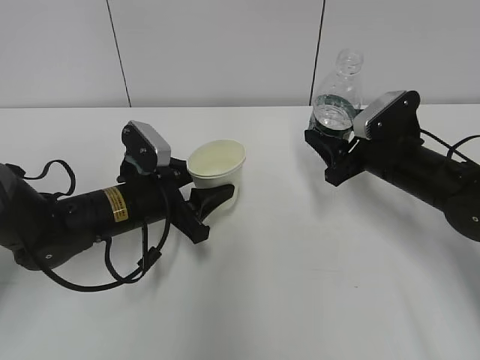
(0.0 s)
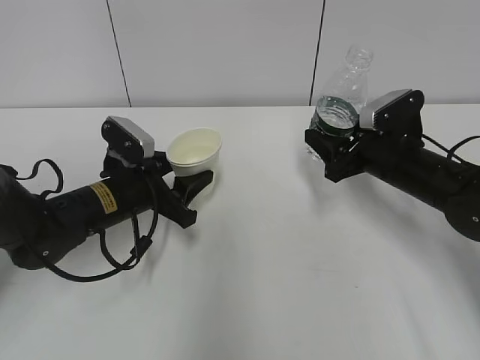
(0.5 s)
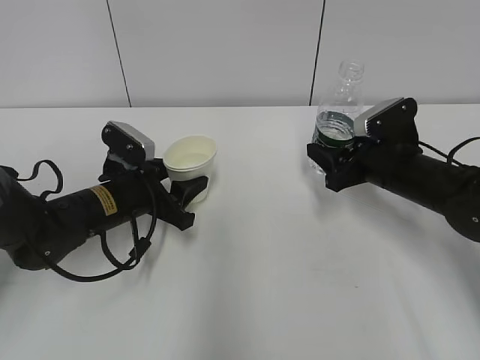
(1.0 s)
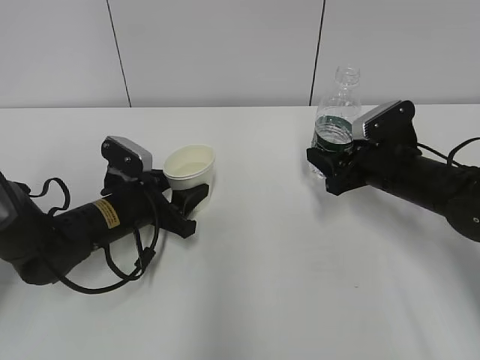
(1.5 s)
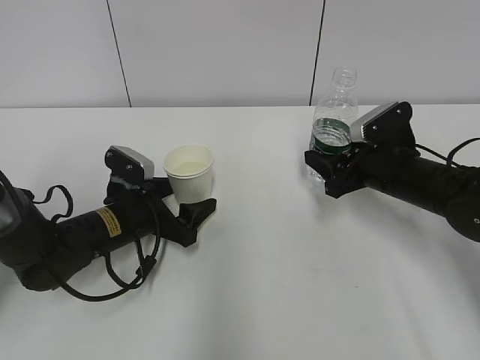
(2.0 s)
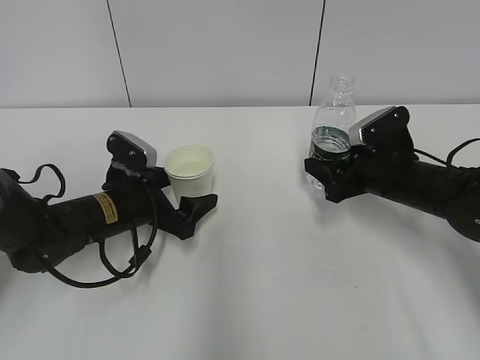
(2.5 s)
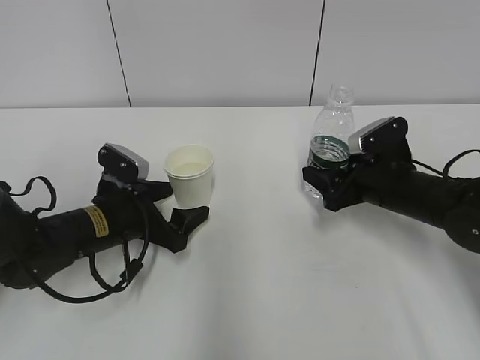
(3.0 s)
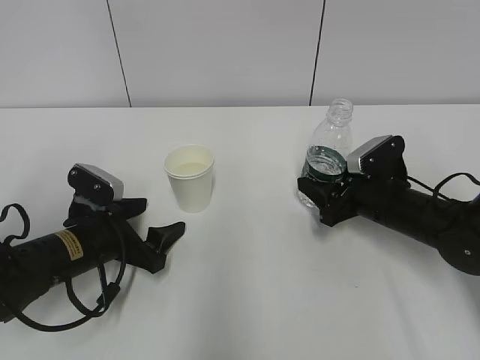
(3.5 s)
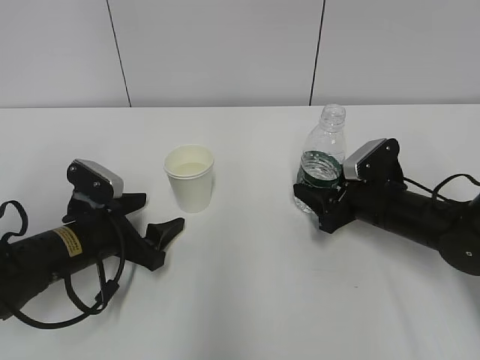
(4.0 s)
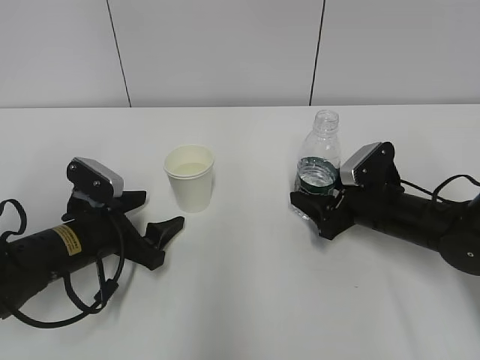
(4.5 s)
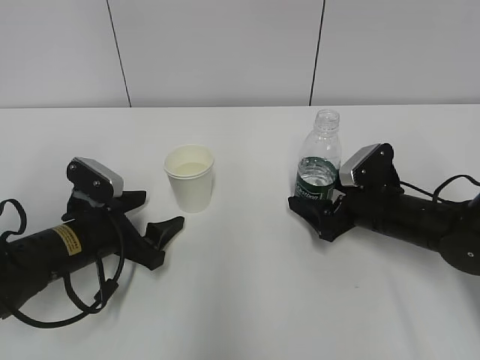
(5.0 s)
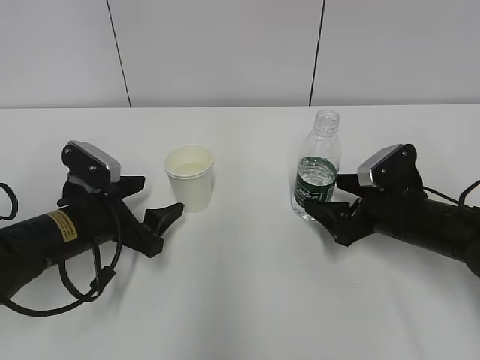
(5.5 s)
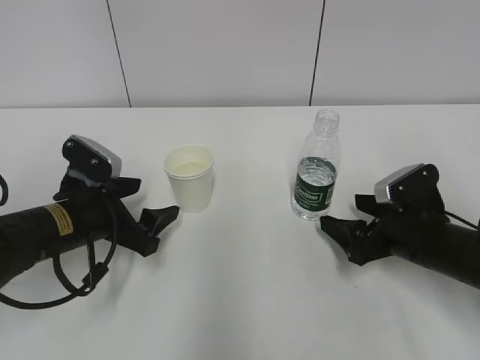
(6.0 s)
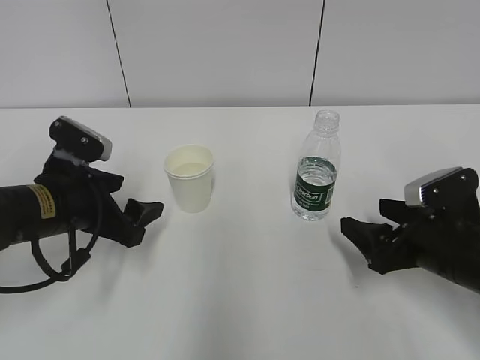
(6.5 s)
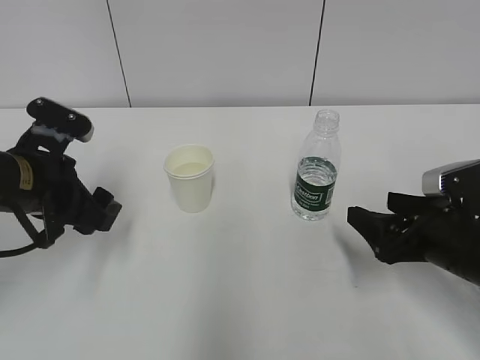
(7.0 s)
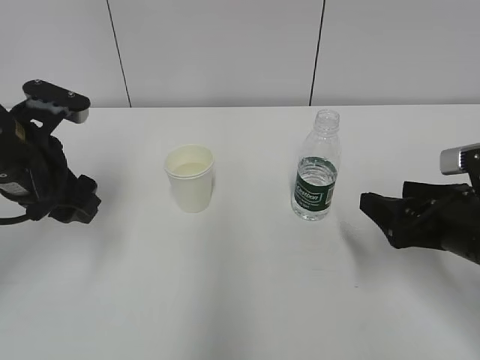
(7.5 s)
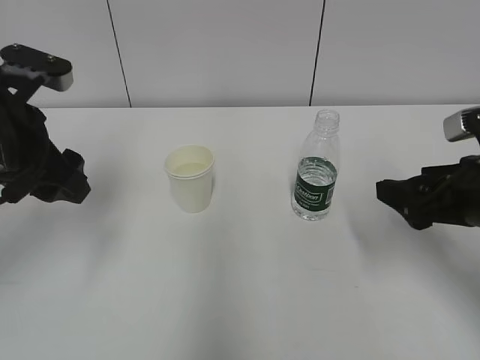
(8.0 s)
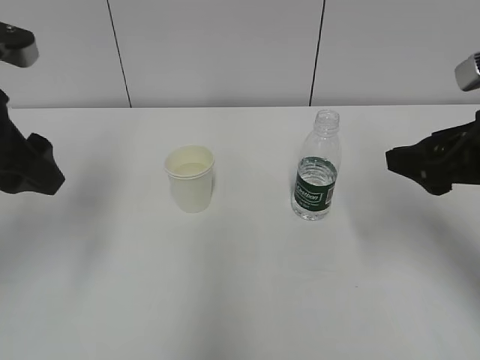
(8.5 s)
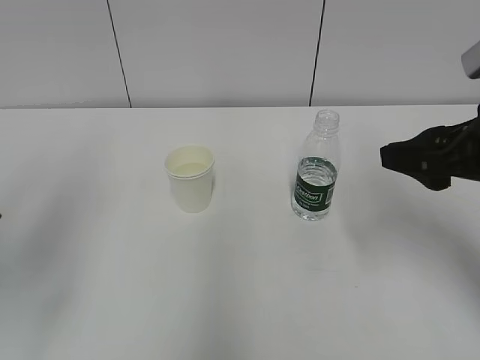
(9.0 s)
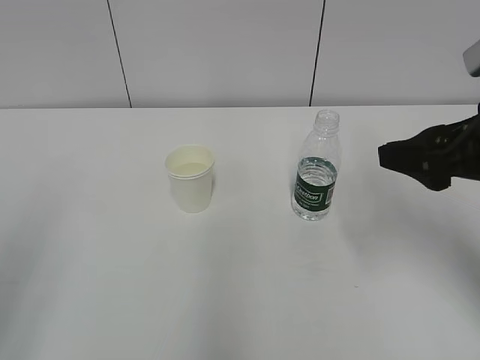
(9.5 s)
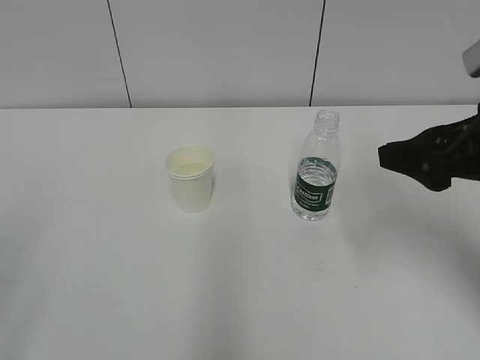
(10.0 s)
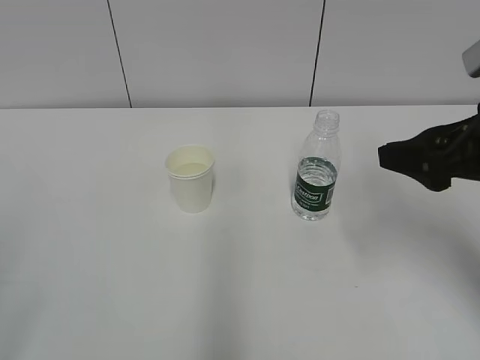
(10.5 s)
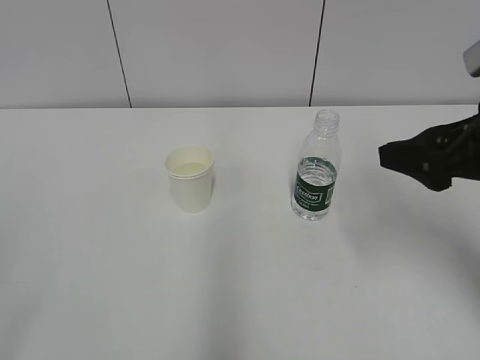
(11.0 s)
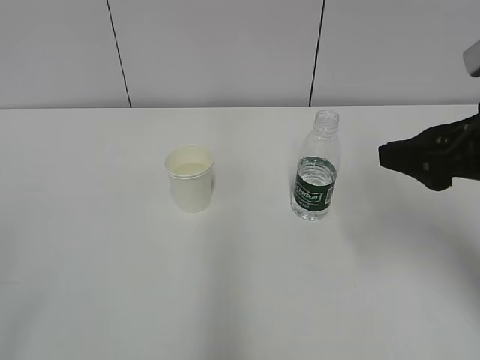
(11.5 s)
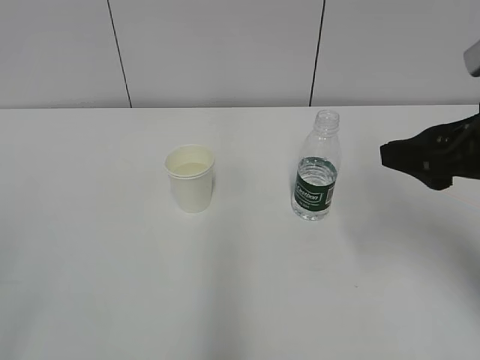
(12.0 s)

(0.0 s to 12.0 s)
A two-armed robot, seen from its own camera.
0.0 s - 2.0 s: The left gripper moves about 5 cm, and opens up.
2.0 s - 4.0 s: The left gripper ends up approximately 5 cm from where it was.
4.0 s - 6.0 s: The right gripper travels backward by some 5 cm, and opens.
6.0 s - 8.0 s: The right gripper shifts some 15 cm upward and backward. Meanwhile the left gripper heads upward, covering approximately 15 cm.
8.0 s - 10.0 s: The right gripper goes about 10 cm upward. Meanwhile the left gripper shifts roughly 25 cm backward.

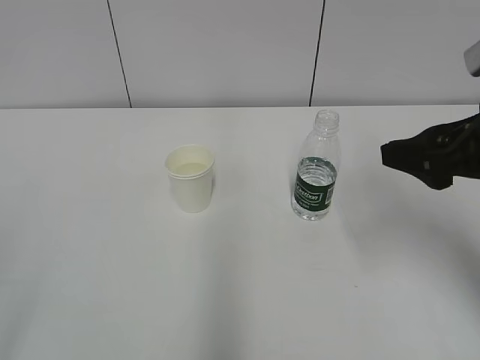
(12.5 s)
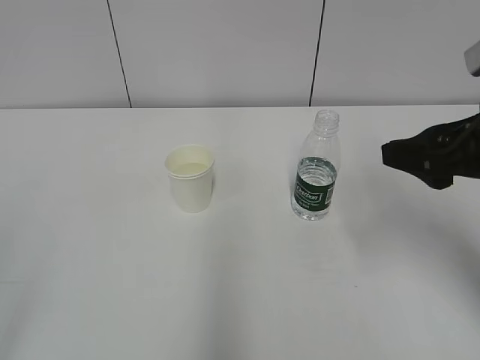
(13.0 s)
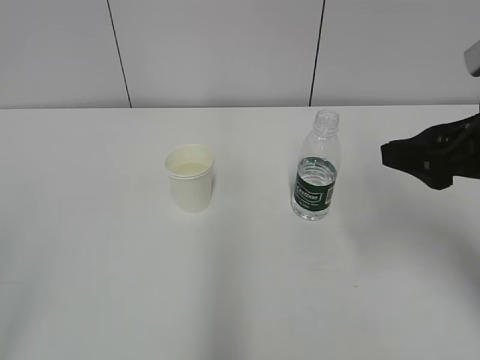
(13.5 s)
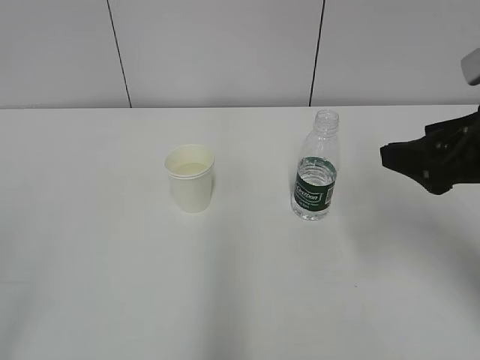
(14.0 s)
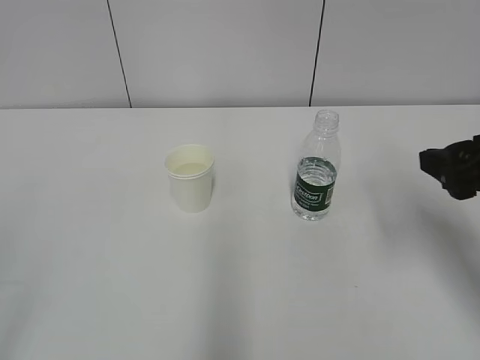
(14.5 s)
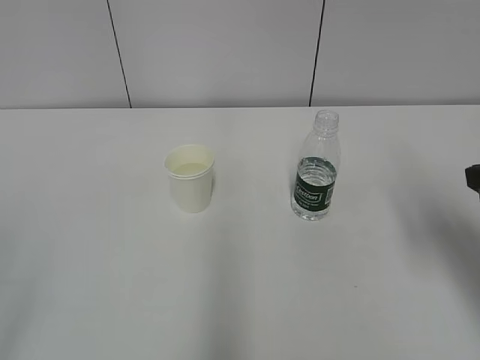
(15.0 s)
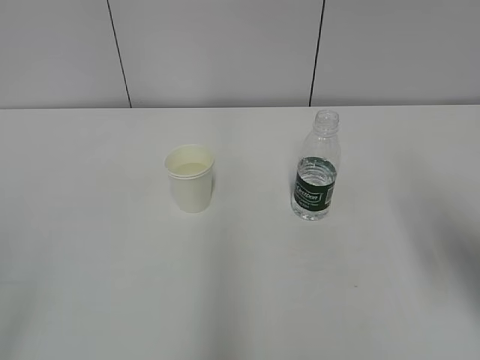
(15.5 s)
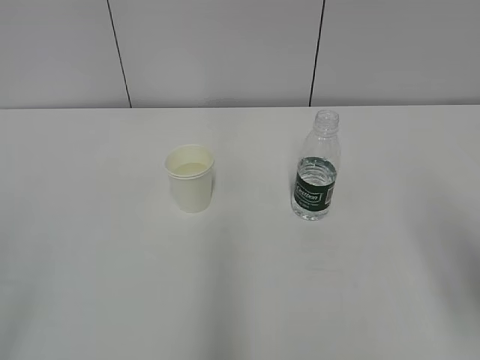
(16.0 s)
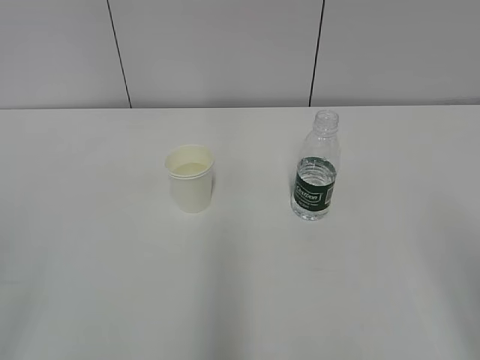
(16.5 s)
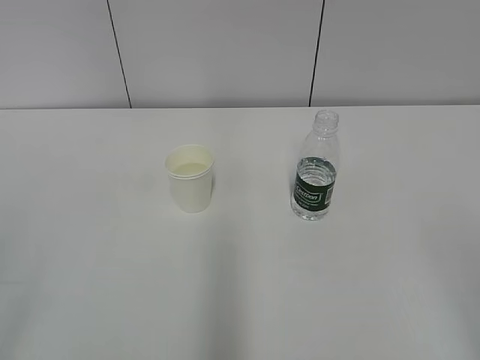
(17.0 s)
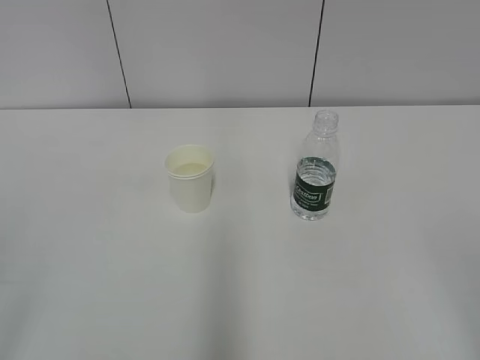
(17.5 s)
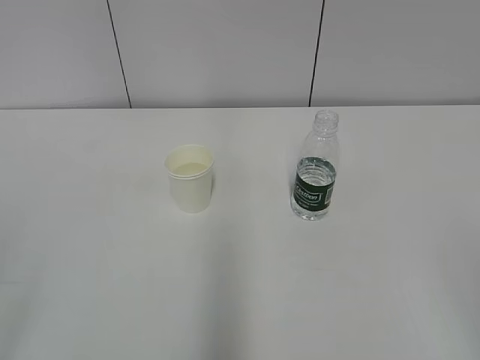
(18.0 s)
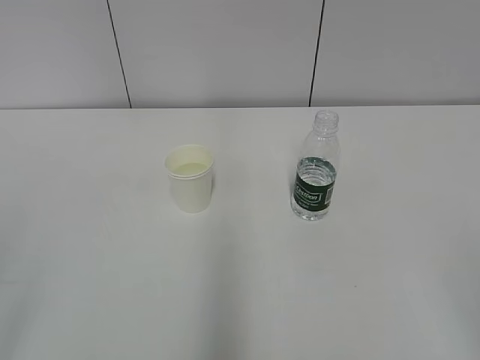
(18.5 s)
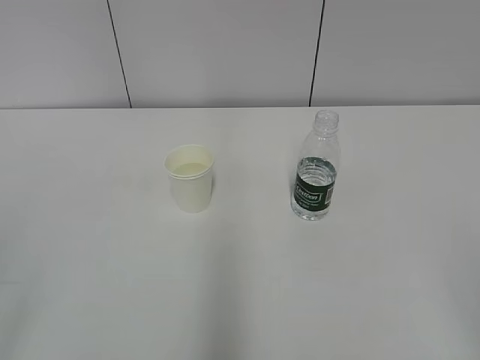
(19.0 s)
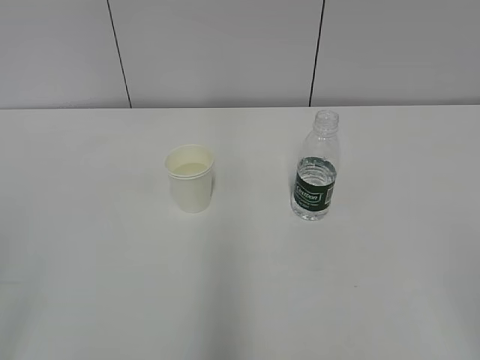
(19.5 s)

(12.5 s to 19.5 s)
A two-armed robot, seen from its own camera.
12.5 s - 14.5 s: The grippers stay close to where they were, moving slightly.
14.5 s - 16.0 s: The right gripper moves backward, some 10 cm.

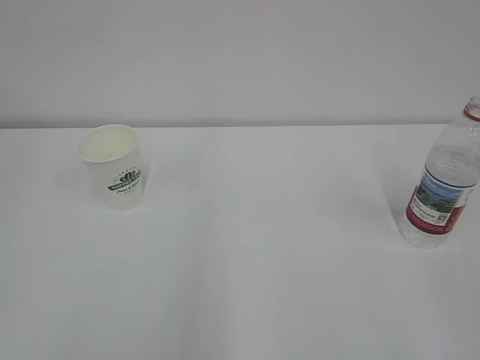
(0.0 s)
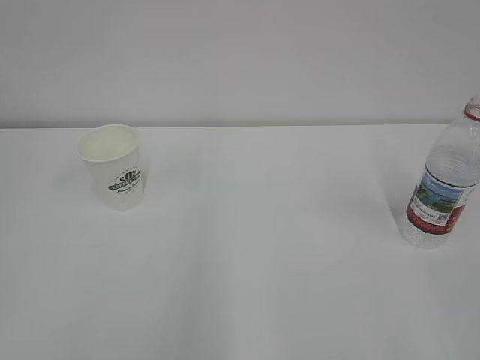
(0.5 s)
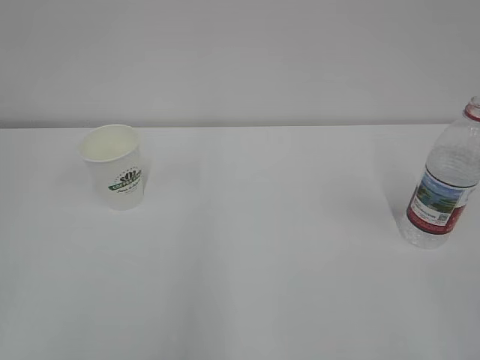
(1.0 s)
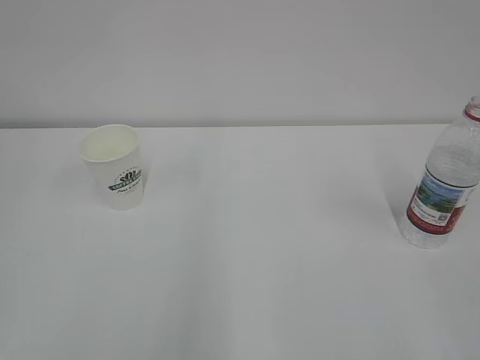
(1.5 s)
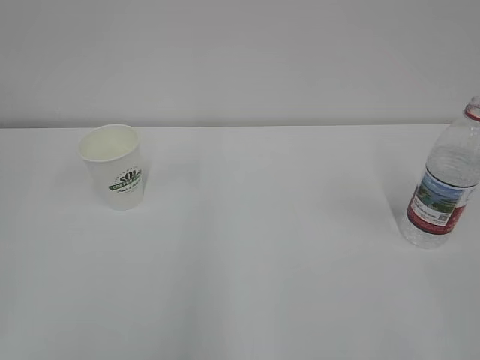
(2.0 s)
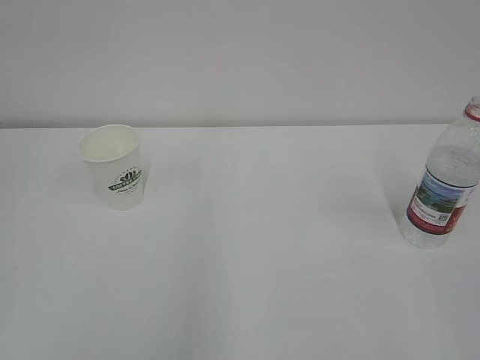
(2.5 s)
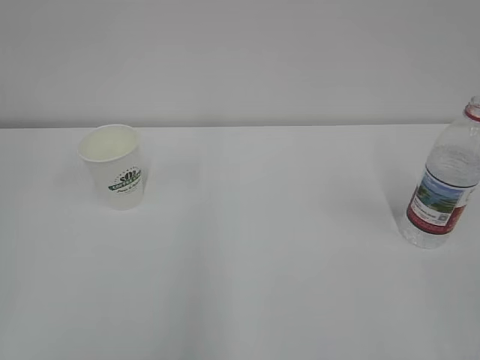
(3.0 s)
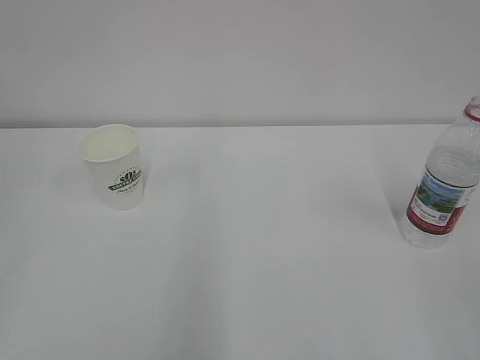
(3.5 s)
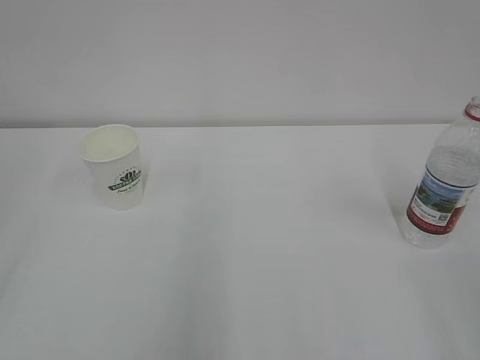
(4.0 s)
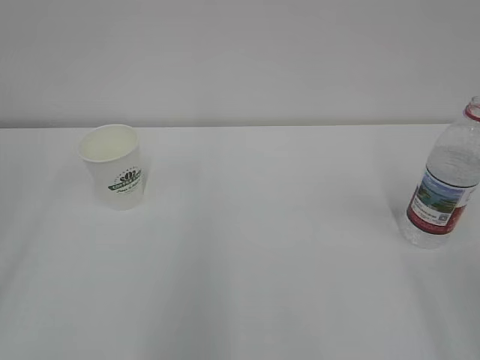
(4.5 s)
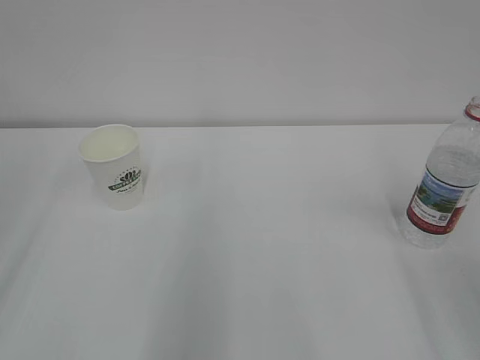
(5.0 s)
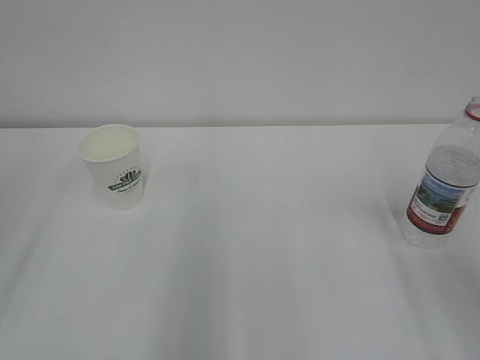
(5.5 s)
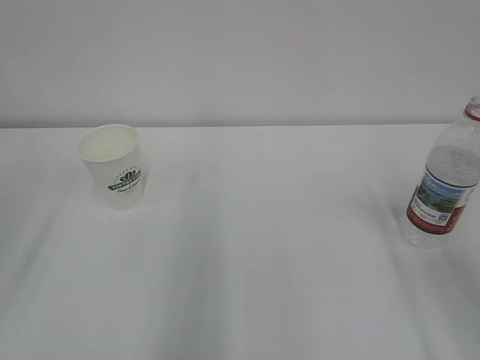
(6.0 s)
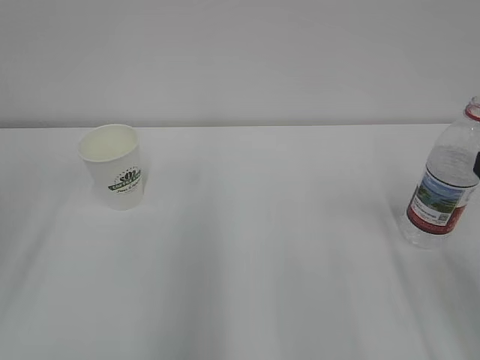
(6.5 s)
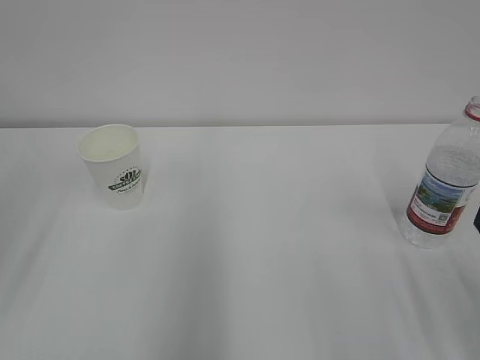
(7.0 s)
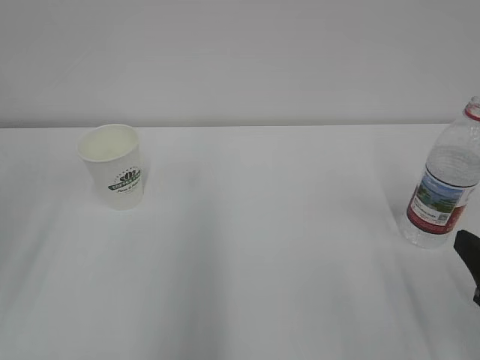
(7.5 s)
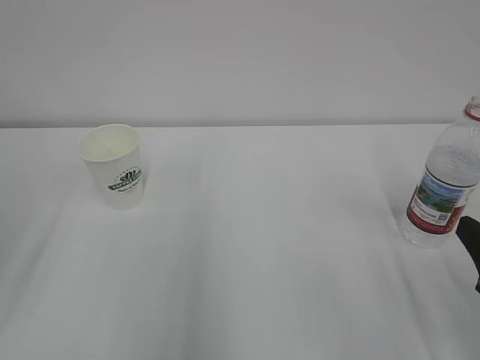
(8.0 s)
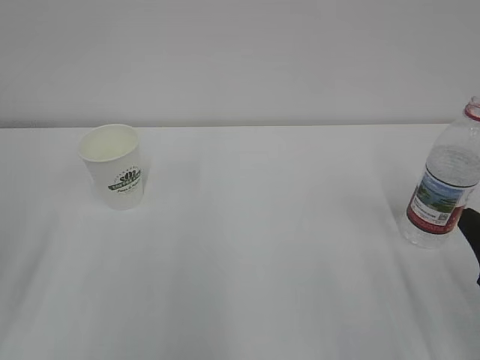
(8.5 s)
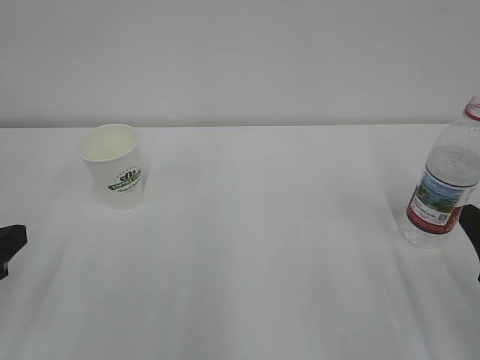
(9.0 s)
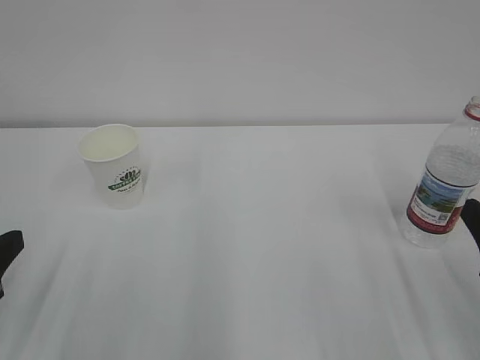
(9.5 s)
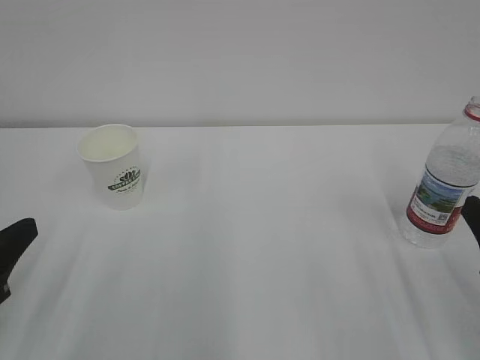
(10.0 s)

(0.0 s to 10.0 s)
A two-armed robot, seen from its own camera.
8.0 s - 10.0 s: The left gripper shifts about 10 cm downward.
